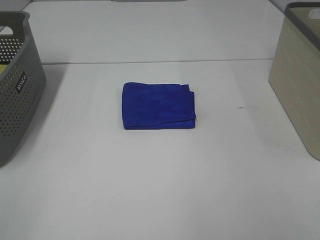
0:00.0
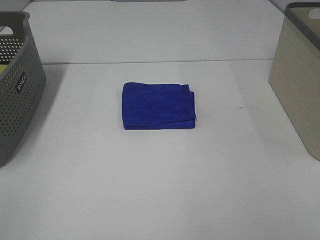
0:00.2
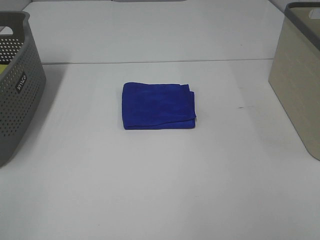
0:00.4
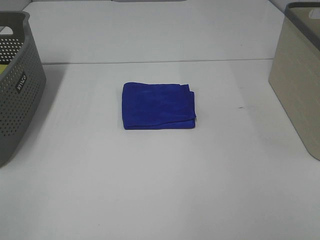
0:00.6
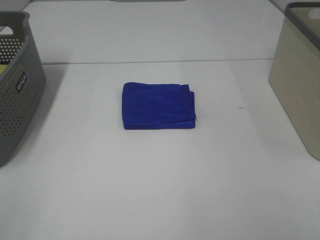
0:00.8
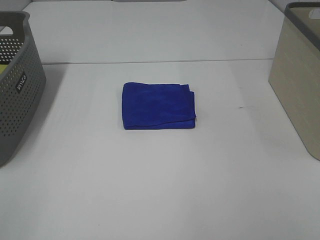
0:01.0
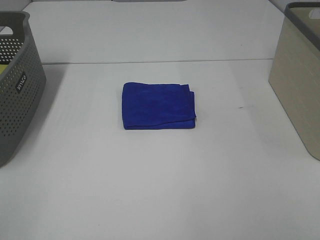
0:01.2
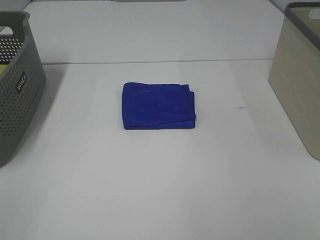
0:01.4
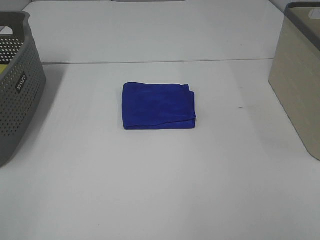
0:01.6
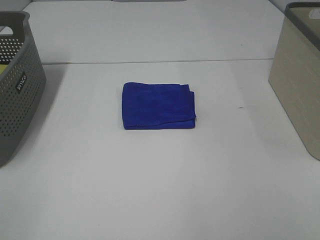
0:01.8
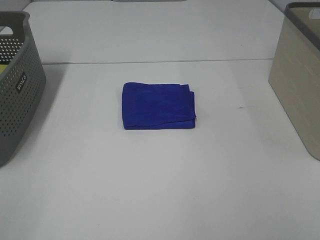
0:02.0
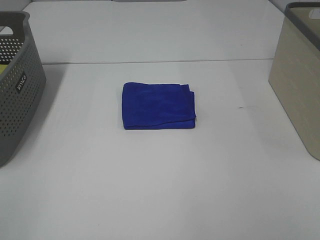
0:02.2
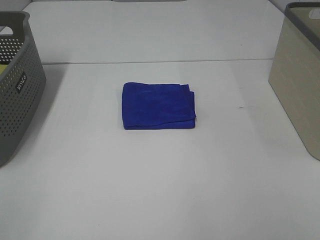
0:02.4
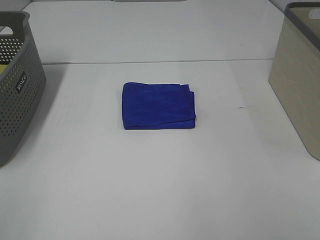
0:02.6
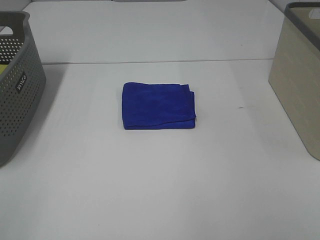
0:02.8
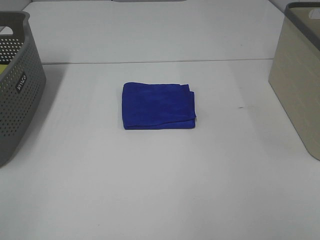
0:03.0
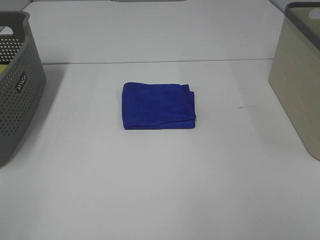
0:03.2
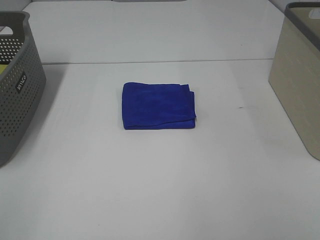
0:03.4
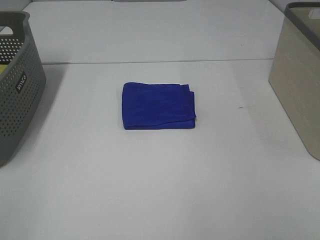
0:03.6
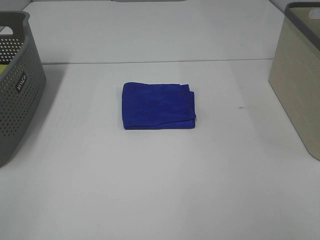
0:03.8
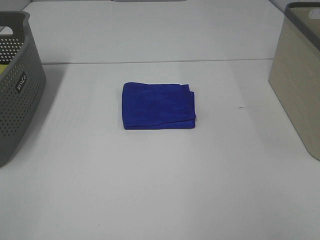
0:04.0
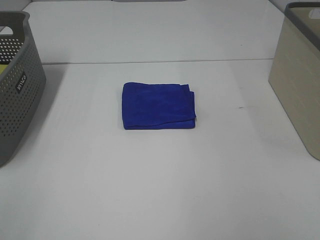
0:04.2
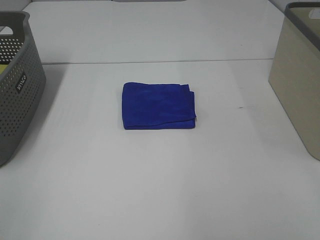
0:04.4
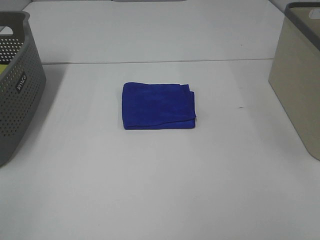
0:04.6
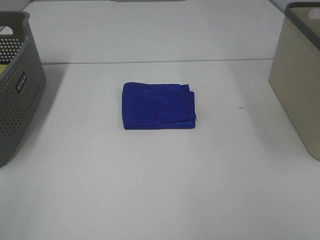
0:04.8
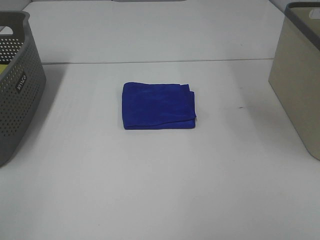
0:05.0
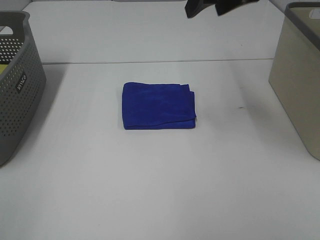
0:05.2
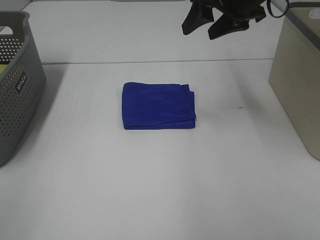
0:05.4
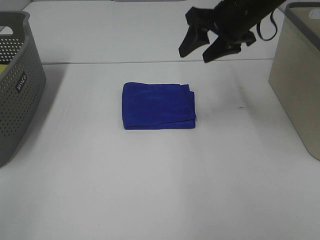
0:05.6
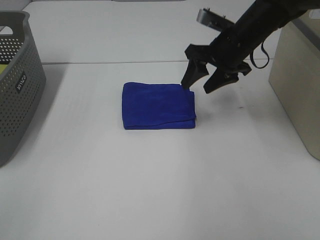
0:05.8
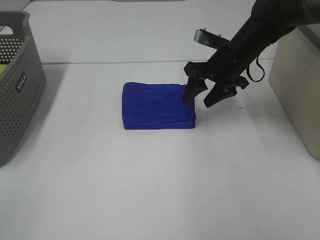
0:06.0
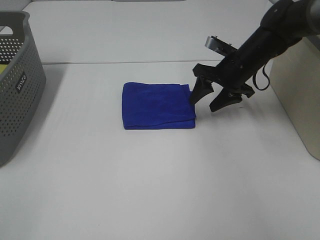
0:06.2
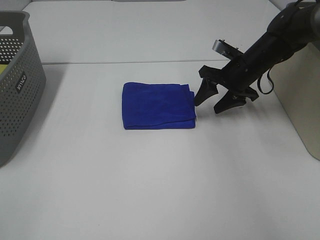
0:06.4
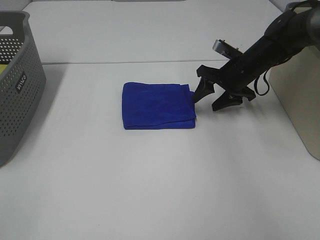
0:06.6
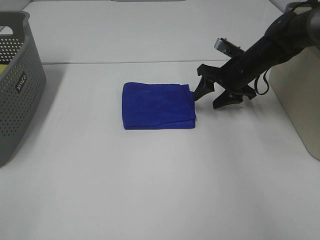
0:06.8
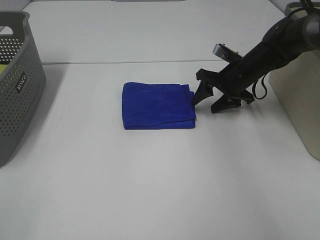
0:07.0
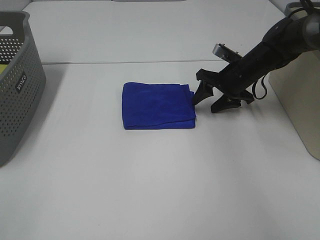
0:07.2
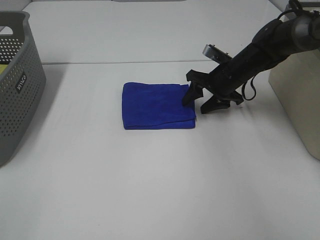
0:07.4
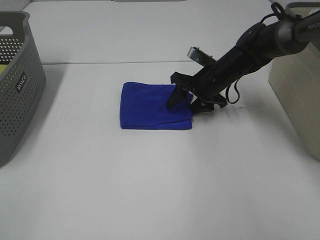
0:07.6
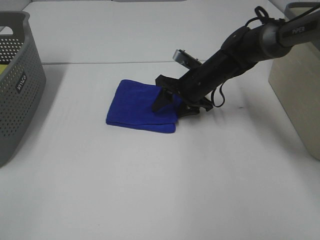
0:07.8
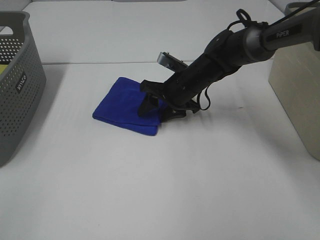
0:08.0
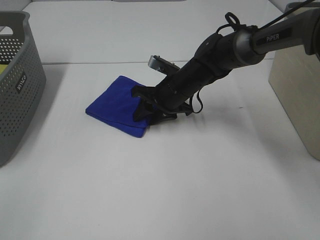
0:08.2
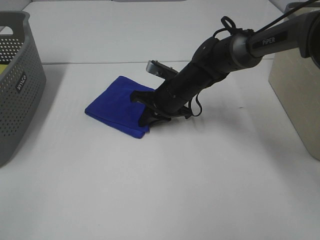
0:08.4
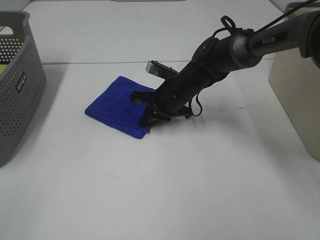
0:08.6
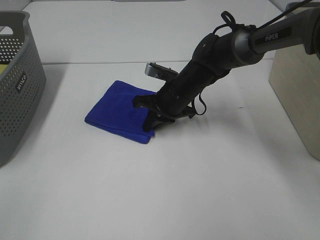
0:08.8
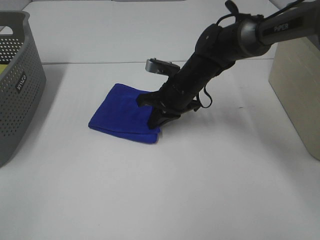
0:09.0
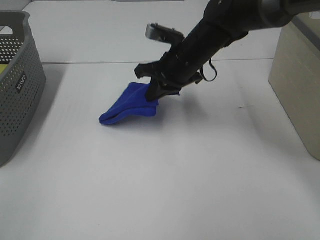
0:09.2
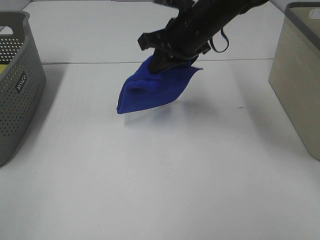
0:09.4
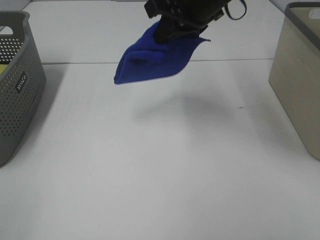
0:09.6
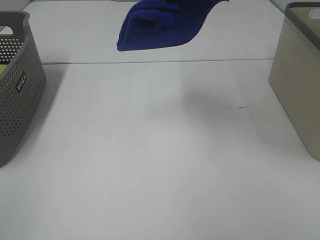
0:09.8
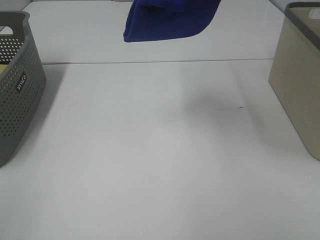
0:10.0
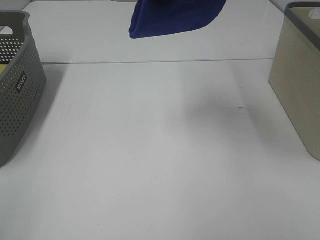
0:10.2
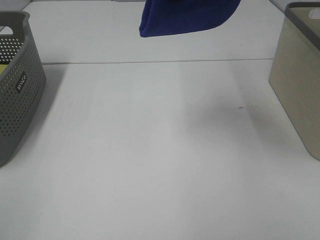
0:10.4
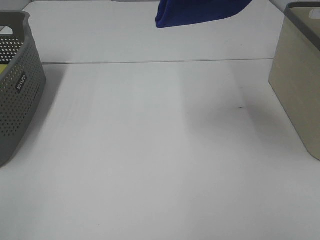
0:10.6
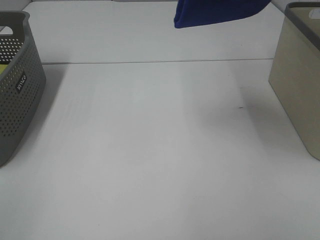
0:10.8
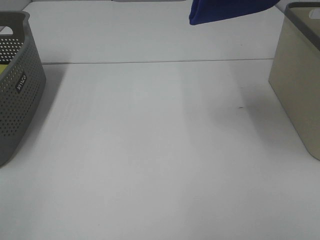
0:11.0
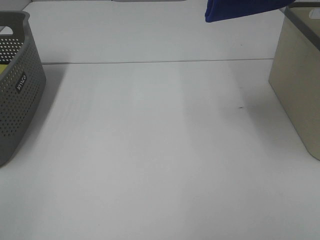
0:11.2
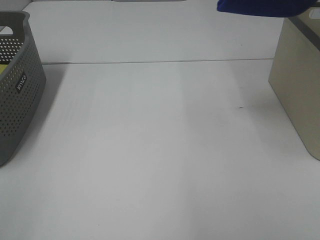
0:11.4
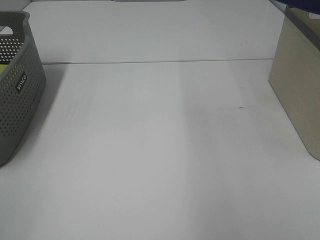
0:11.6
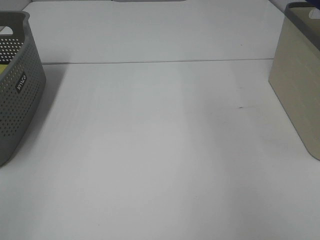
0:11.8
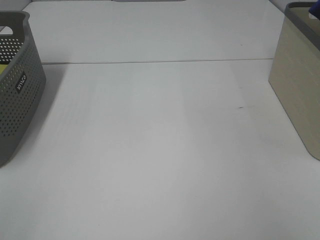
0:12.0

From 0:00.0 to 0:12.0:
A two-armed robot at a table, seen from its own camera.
Step, from 0:00.0 to 0:08.6: Right hand: grab the folded blue towel.
From 0:04.4 to 0:06.0: The right gripper is displaced downward and forward by about 40 cm.
From 0:06.0 to 0:07.6: The right gripper moves downward, approximately 5 cm.
From 0:07.6 to 0:09.0: The right gripper goes some 5 cm to the left, and closes its fingers.
From 0:09.0 to 0:10.4: The right gripper travels upward by approximately 30 cm.
From 0:10.4 to 0:12.0: The right gripper travels to the right by about 30 cm.

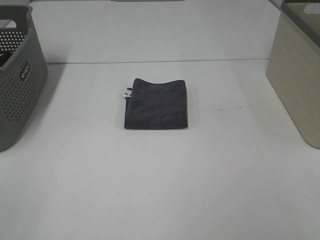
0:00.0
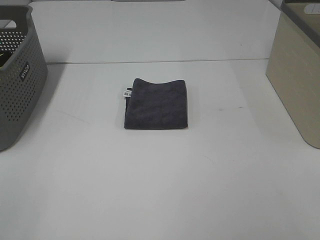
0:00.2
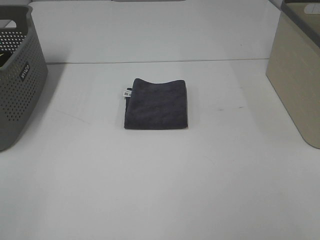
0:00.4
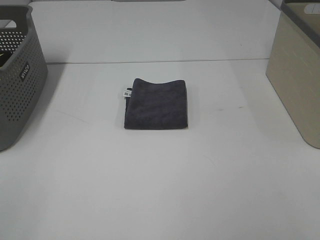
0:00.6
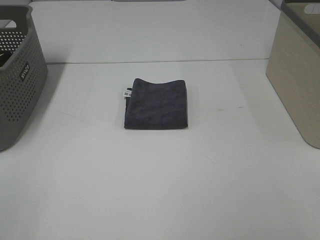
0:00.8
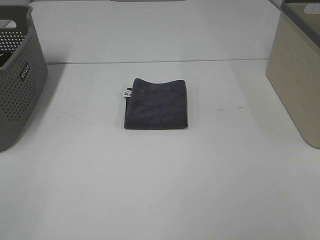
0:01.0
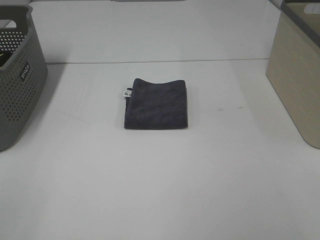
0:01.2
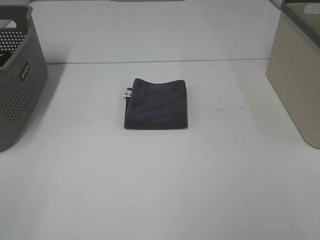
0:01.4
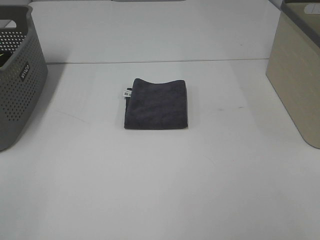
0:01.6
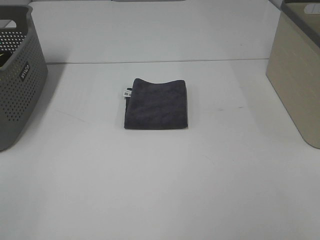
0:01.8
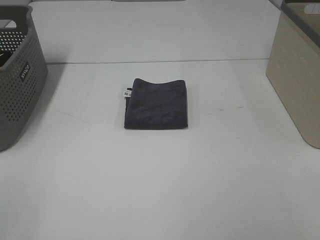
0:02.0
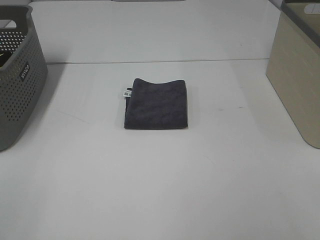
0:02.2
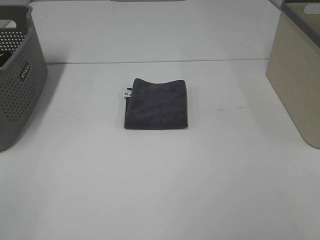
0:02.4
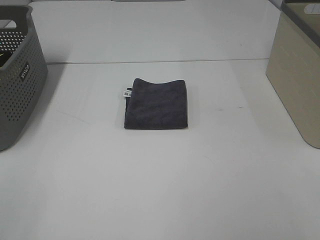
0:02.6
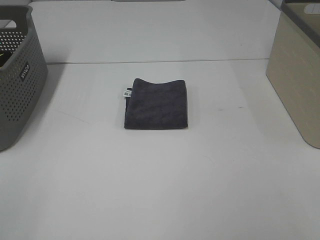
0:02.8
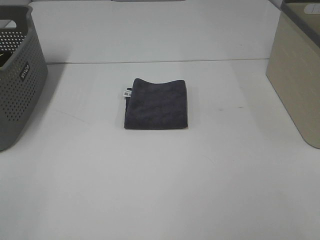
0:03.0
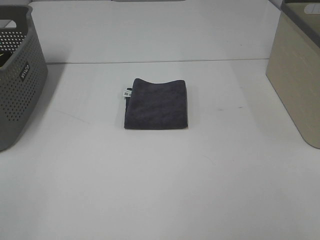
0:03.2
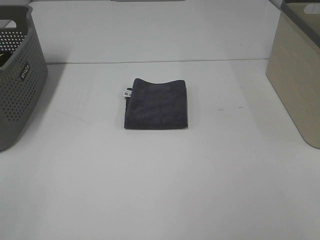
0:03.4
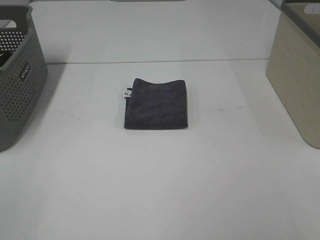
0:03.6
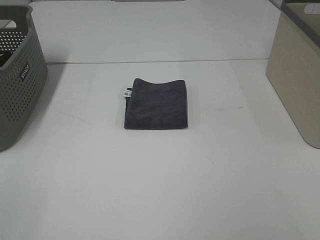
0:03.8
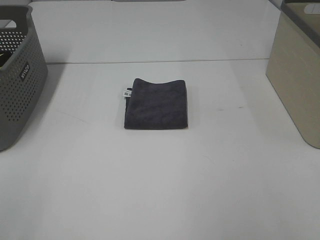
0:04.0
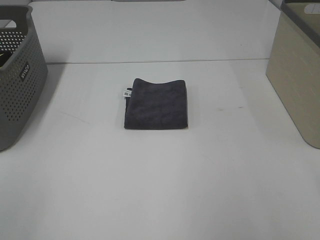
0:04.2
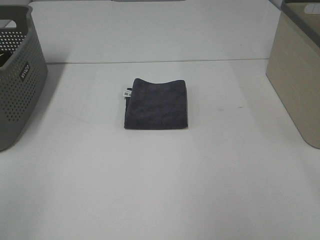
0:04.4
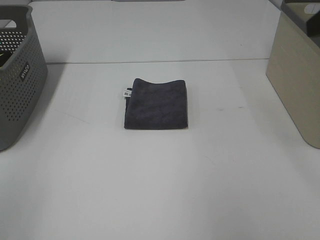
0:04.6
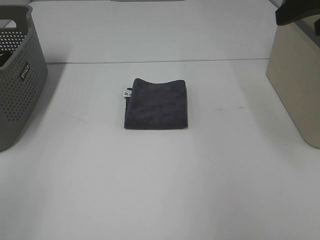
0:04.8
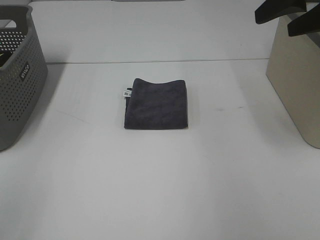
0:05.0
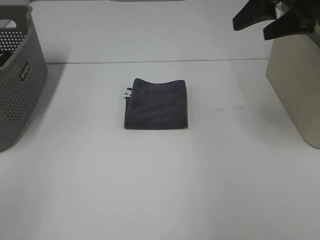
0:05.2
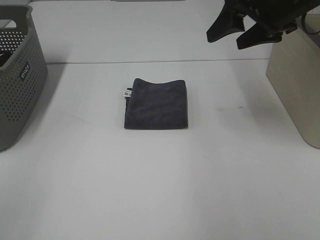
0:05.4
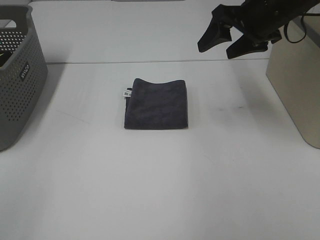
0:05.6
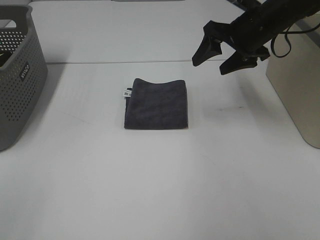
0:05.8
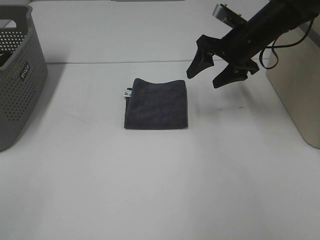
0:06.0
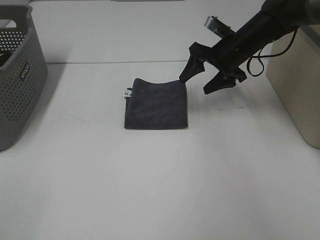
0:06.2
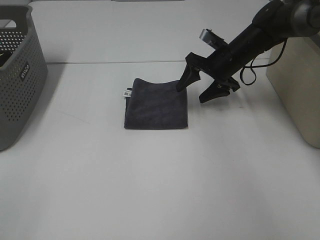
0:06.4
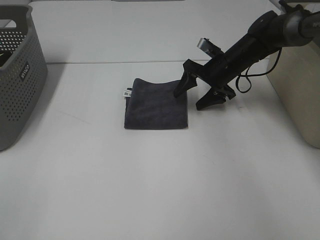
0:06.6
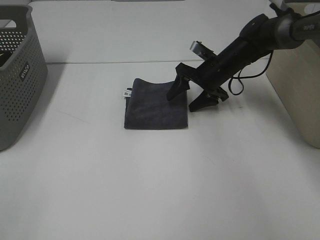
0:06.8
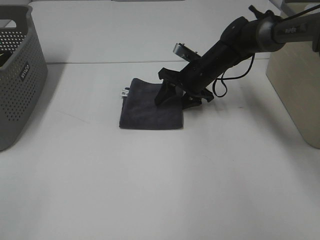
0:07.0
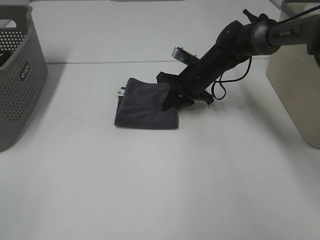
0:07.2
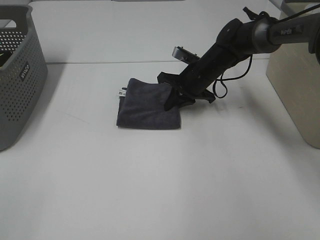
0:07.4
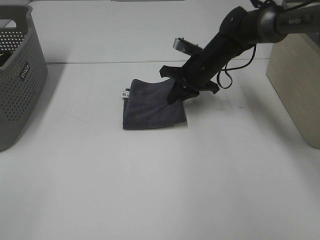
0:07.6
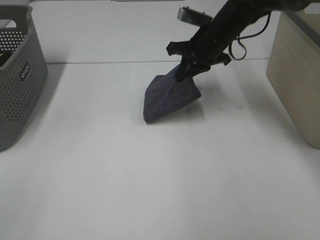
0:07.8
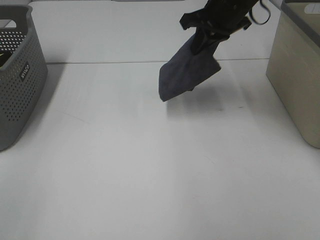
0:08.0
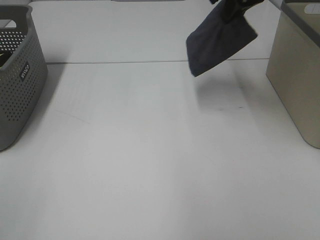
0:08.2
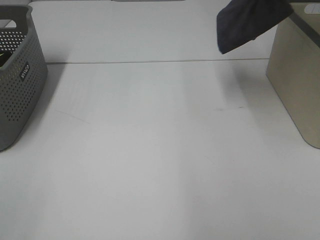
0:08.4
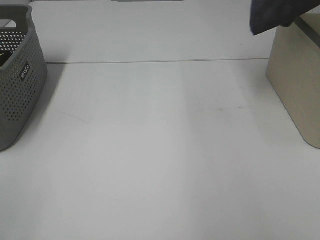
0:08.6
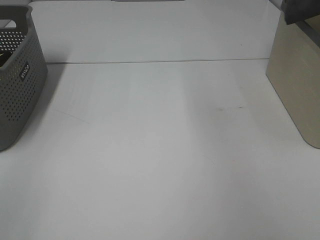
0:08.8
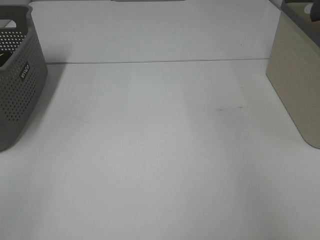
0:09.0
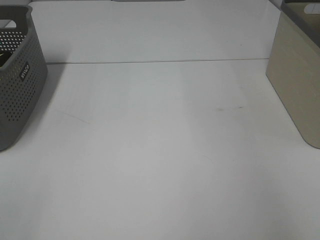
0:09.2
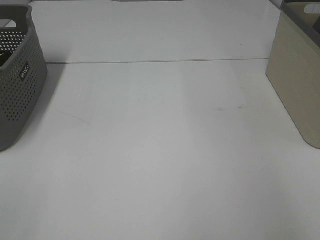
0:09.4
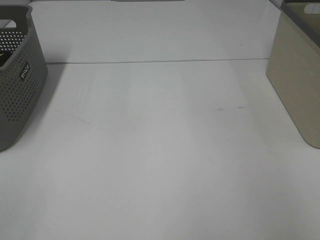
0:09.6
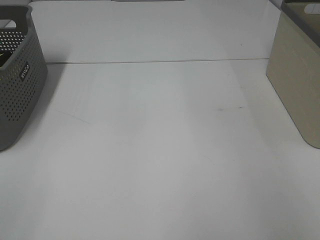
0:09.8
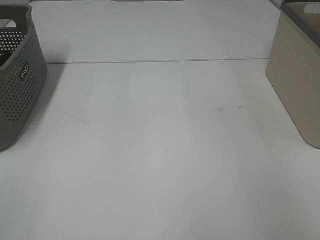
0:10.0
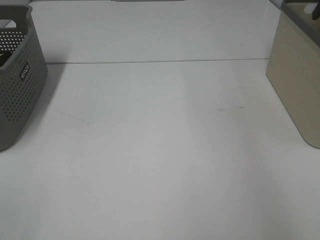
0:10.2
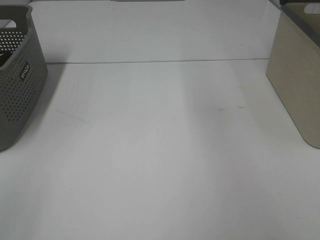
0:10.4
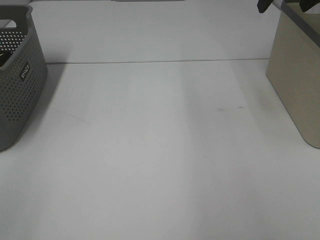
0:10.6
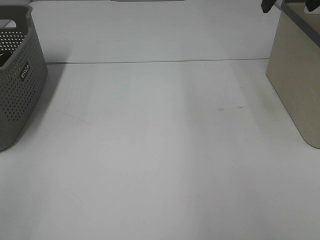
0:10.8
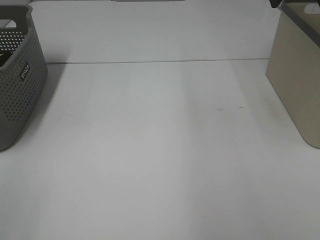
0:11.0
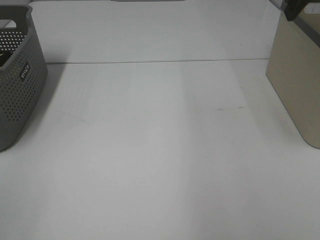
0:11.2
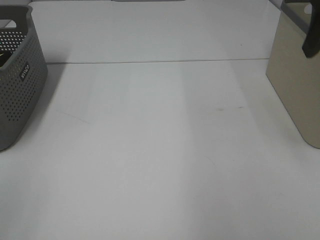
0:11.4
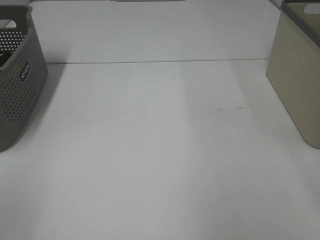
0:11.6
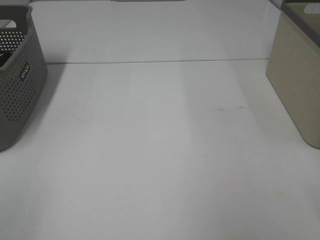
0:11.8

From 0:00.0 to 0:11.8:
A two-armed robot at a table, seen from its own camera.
Step, from 0:00.0 to 0:07.4: Right hand: grab the folded grey towel.
Step, from 0:07.6 to 0:10.0: Right hand: place the grey towel in right basket.
From 0:00.0 to 0:03.0: Neither gripper changes place.
From 0:04.4 to 0:06.0: The right gripper is displaced forward and downward by some 30 cm.
From 0:06.0 to 0:07.4: The right gripper is displaced downward and to the left by some 10 cm, and closes up.
From 0:07.4 to 0:08.8: The right gripper travels upward and to the right by roughly 40 cm.
